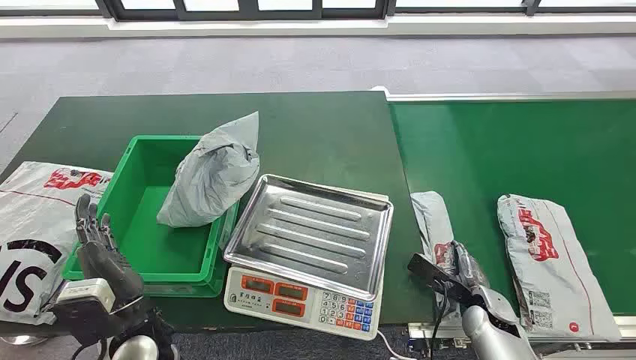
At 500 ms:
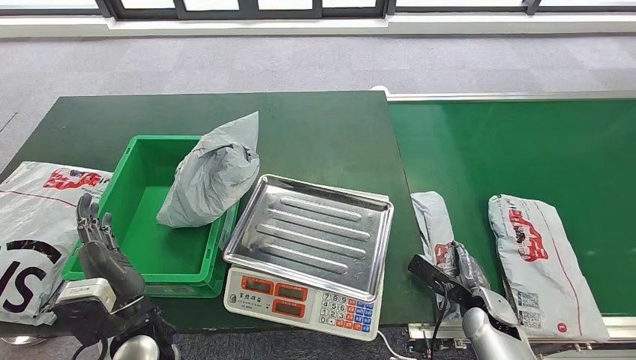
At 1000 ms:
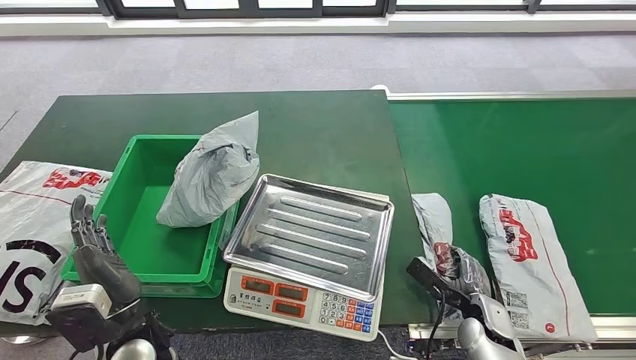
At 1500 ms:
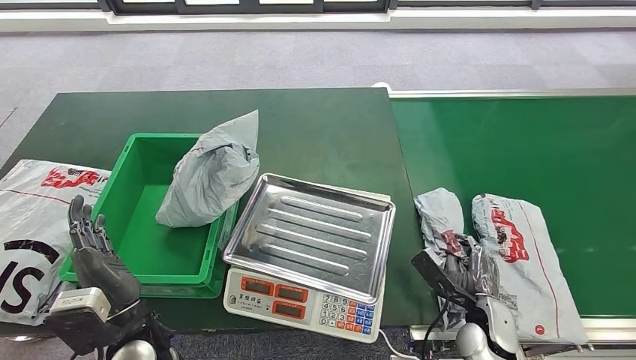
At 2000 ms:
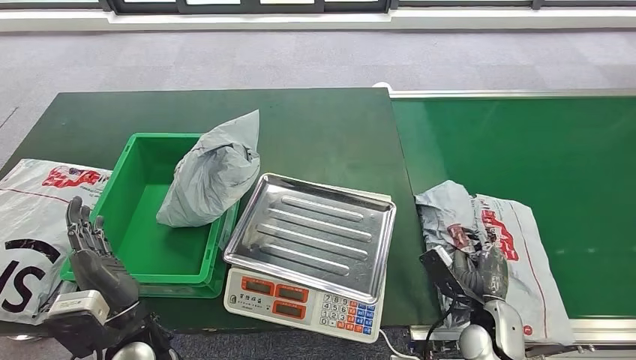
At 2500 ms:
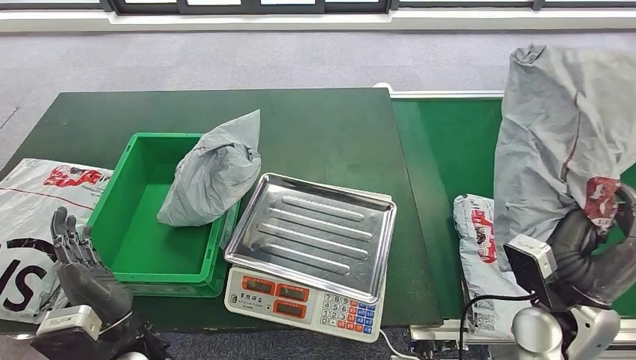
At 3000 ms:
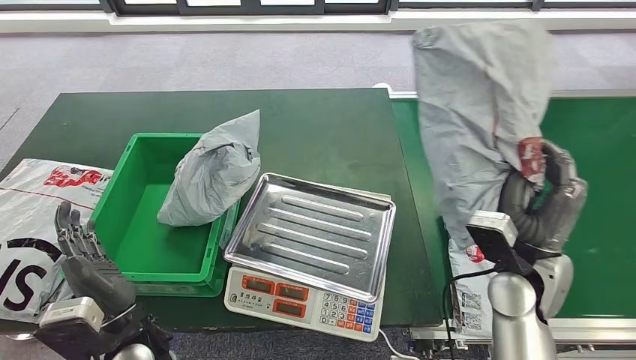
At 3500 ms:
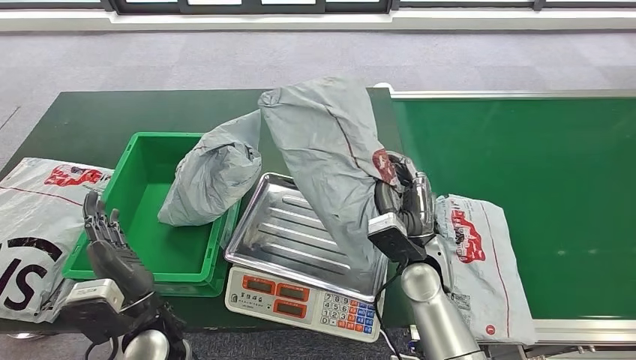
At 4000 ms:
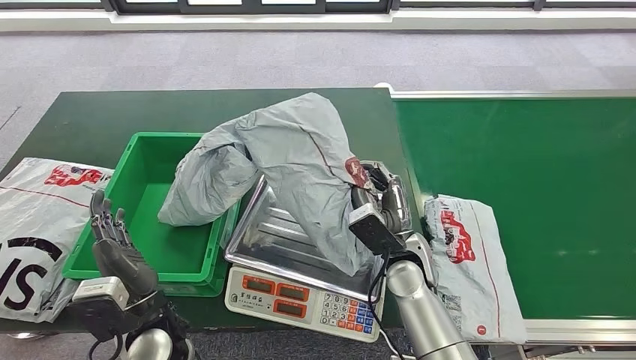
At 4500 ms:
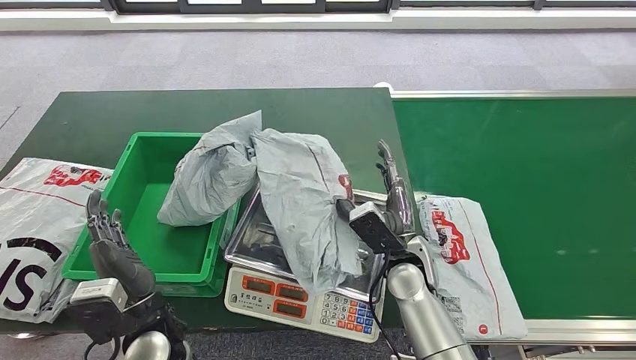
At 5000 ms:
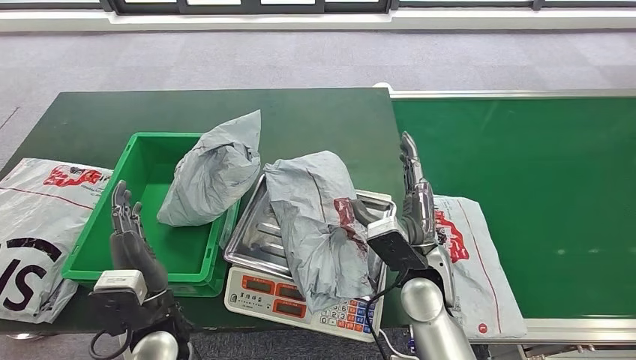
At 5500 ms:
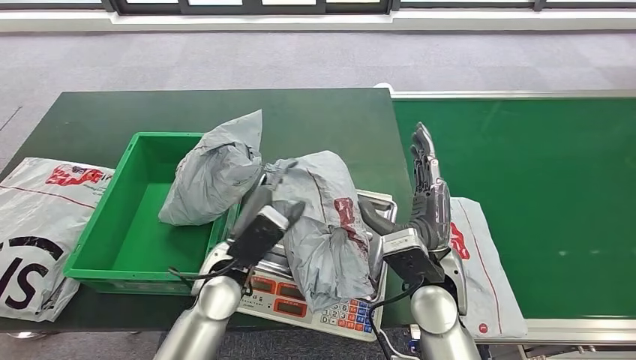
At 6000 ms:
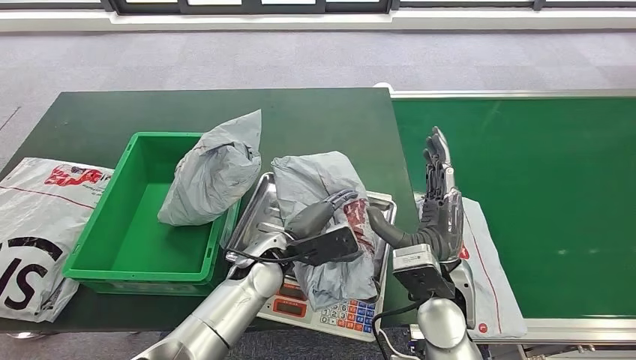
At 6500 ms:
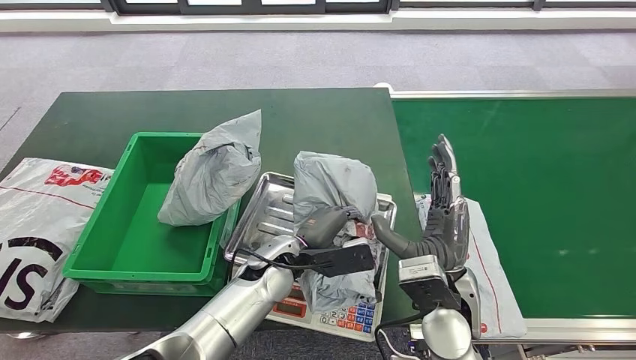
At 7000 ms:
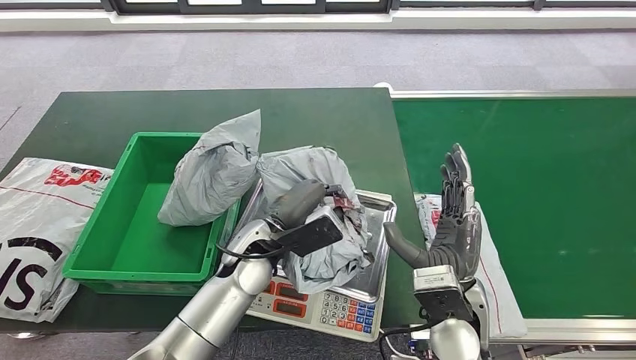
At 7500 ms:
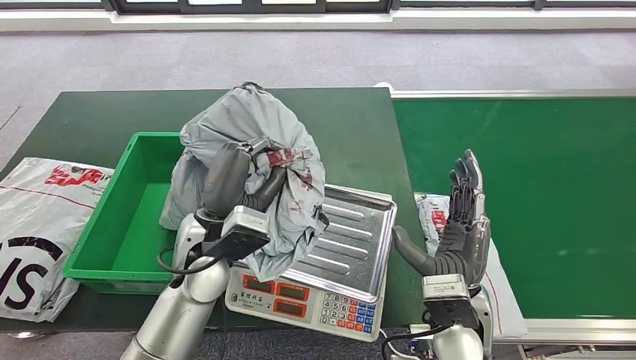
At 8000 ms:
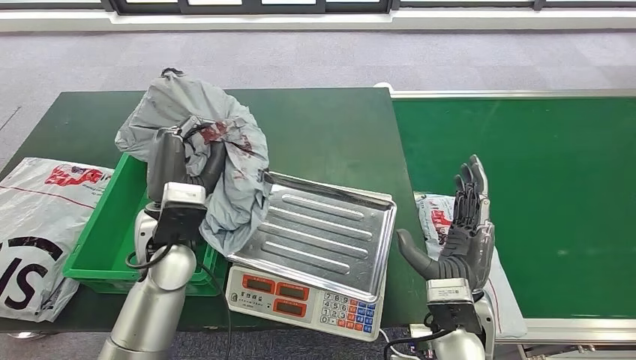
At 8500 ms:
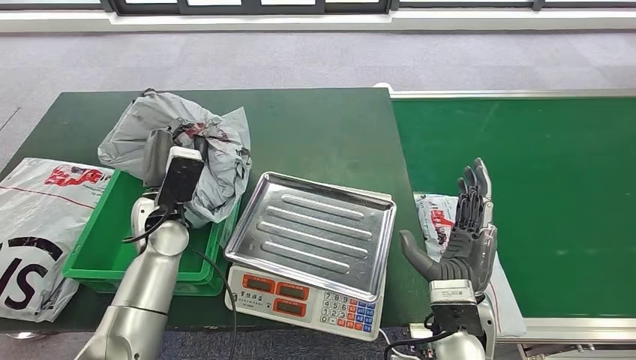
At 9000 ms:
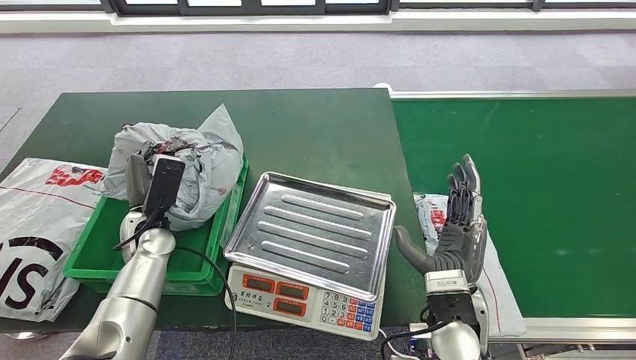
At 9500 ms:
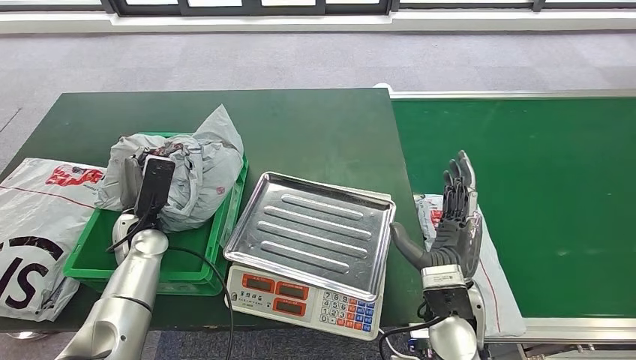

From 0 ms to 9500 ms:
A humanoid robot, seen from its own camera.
Step, from 0 ms to 2500 ms: Pick up the package from the conveyor belt.
Step, from 3000 ms to 4500 ms: Place the package onto the inbound machine.
Step, from 5000 ms to 7000 ms: Pick up the package from the inbound machine.
Step, from 7500 ms to 9500 ms: Place the package into the parcel locker.
